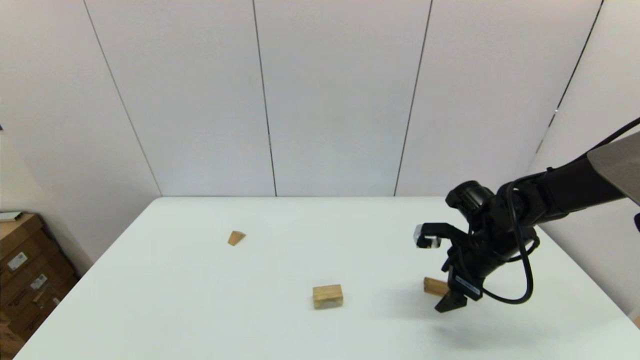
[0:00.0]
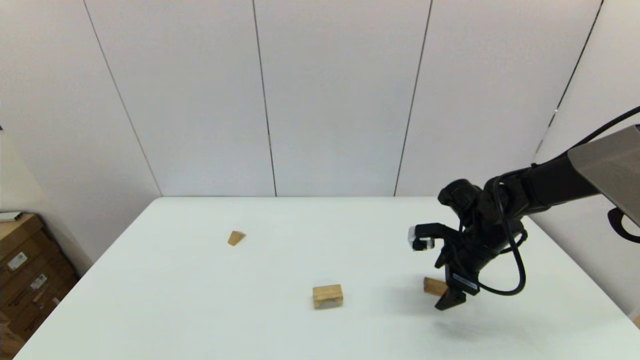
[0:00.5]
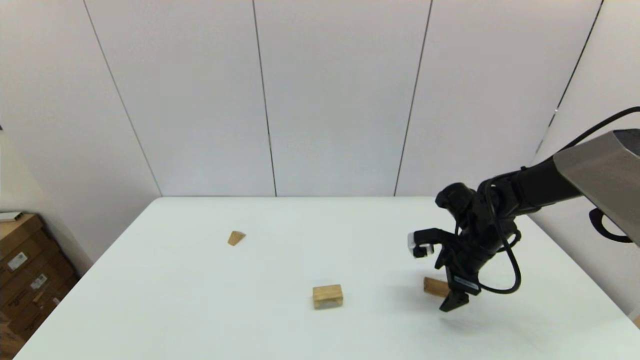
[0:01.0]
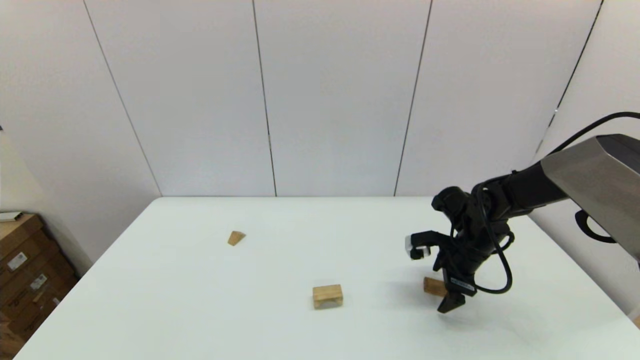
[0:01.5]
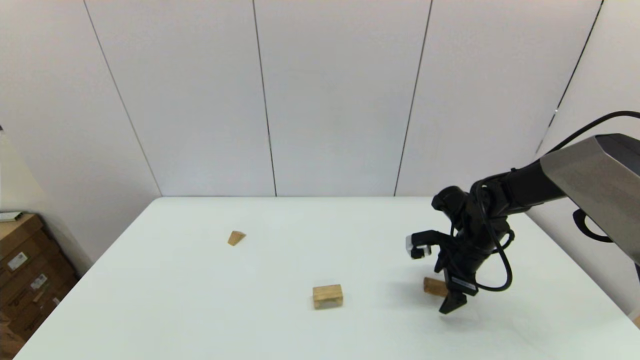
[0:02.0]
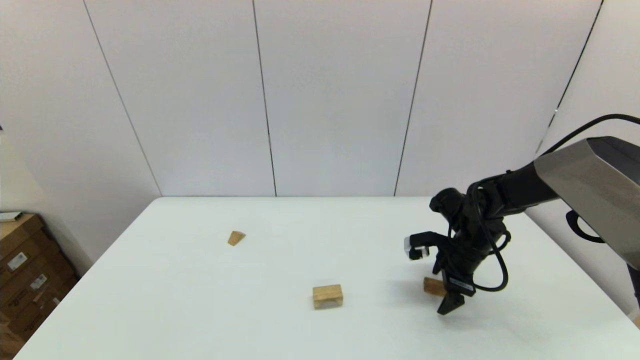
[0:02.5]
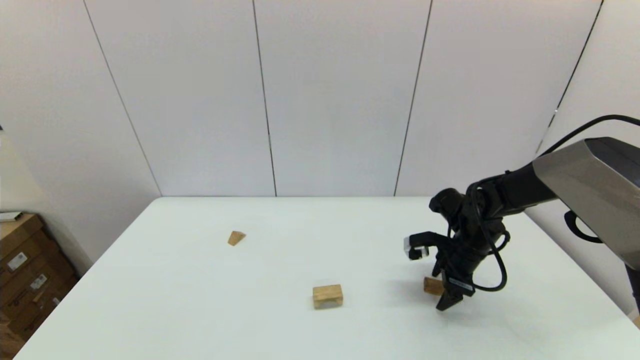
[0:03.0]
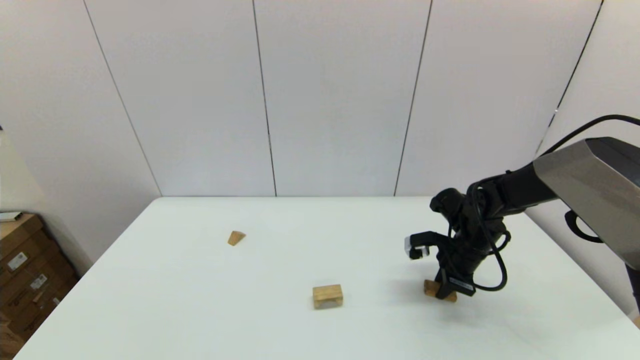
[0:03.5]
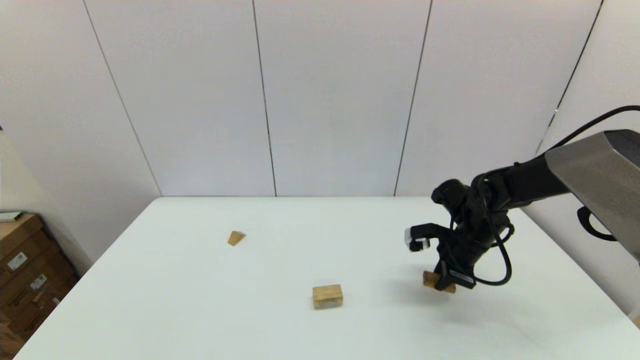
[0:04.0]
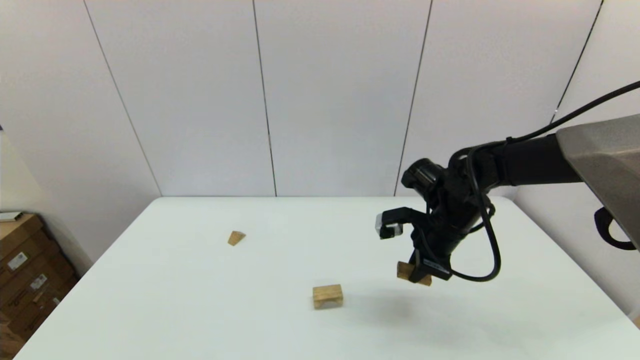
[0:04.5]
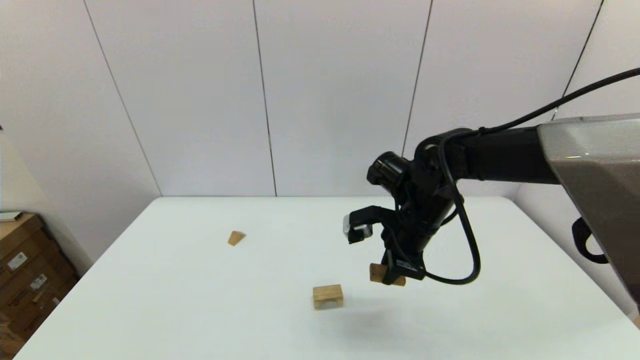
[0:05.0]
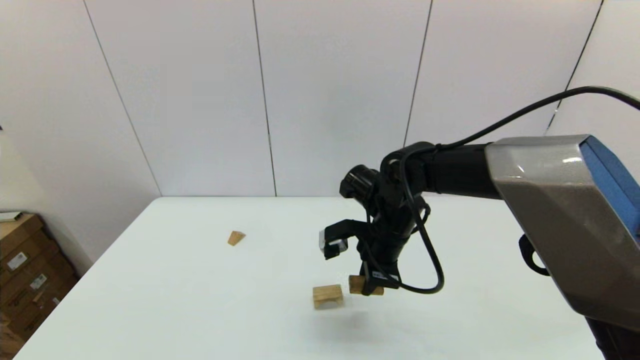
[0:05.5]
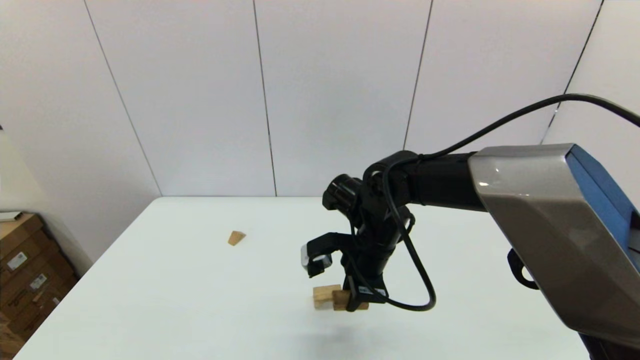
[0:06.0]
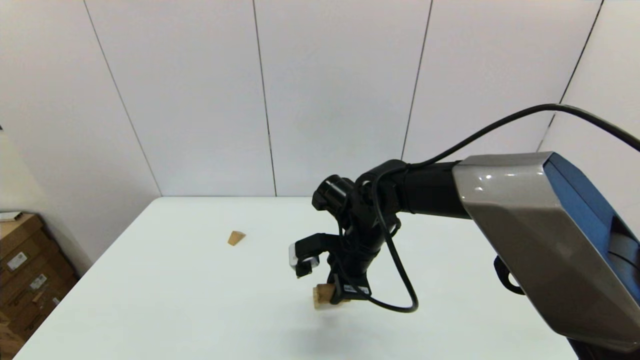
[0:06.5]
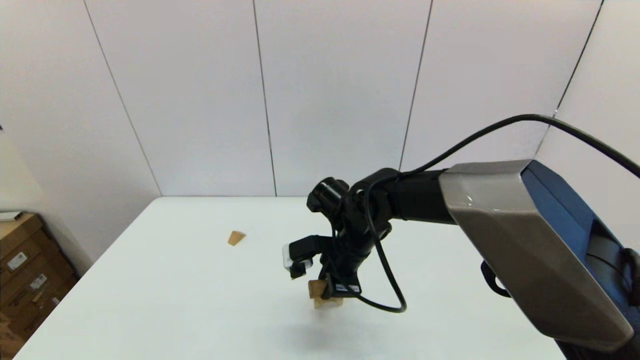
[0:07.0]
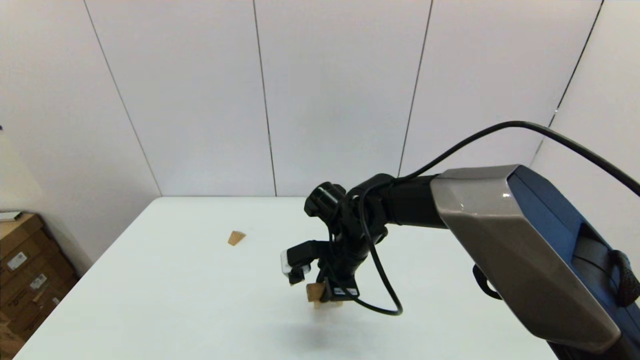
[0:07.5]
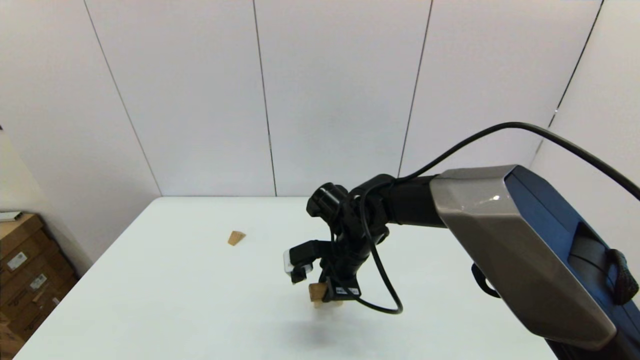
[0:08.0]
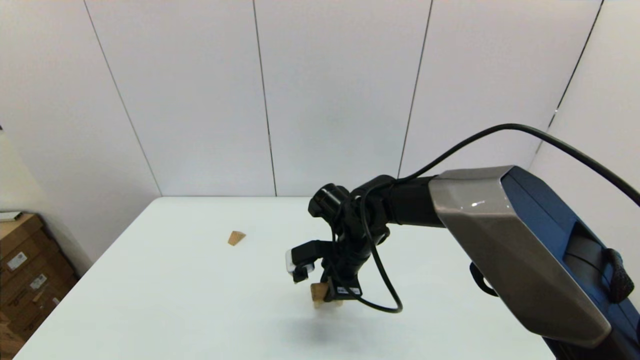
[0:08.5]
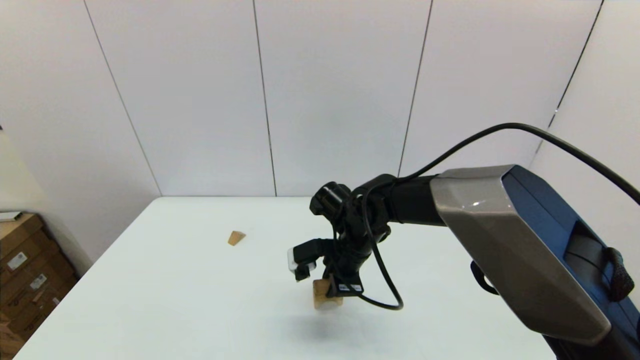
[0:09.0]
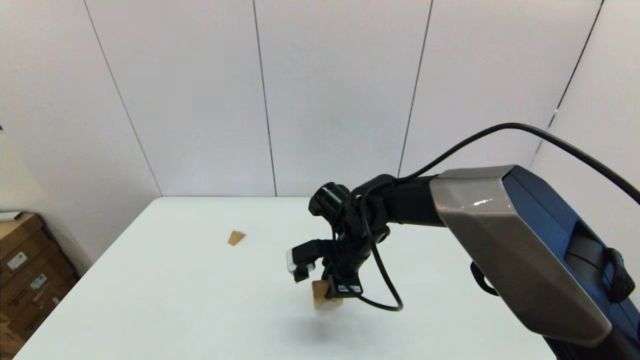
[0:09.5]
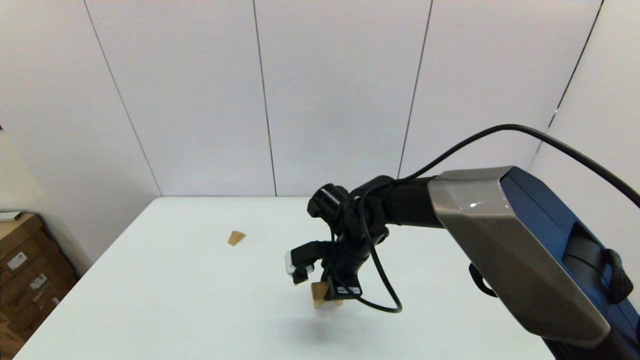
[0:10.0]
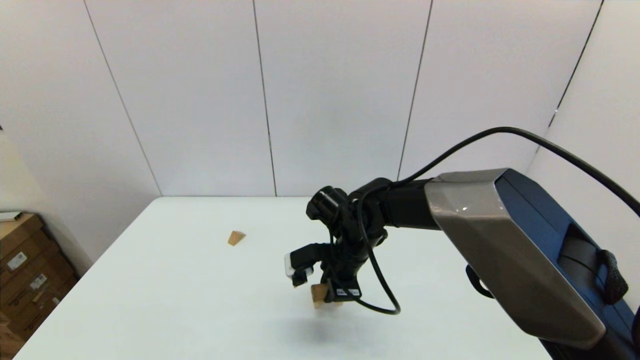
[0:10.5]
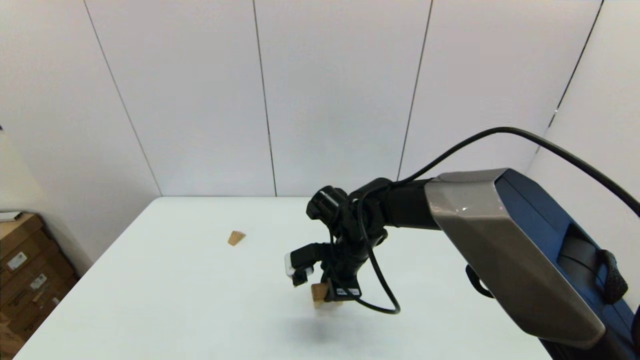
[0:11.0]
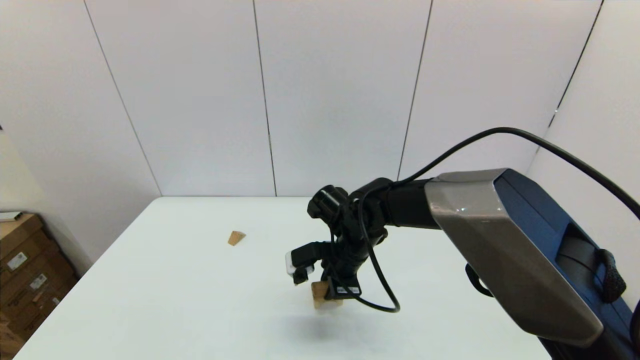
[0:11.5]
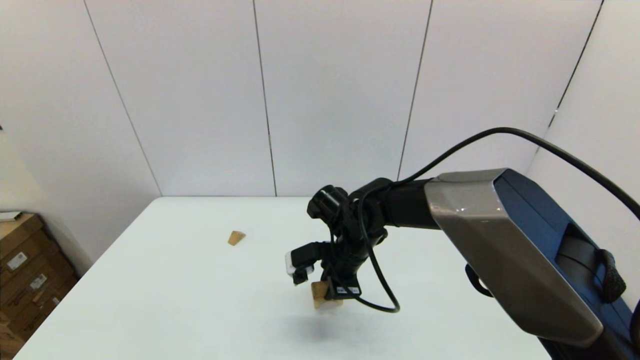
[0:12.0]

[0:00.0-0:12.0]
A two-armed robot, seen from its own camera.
Task of the whole recording: place the arched building blocks in the center of the table, set up the rectangular building blocks, and then set up the triangular building blocks.
Step, 0:00.0 to 0:03.0: Grasp the box-shaped block with the right gripper.
0:00.0 to 0:02.0: There are only small adjustments of the grippers.
0:02.0 to 0:04.0: The right gripper closes its fingers.
0:04.0 to 0:06.0: The right gripper moves to the left, about 20 cm.
0:06.0 to 0:08.0: The right gripper changes place by about 5 cm.
0:08.0 to 0:12.0: Neither gripper changes place.

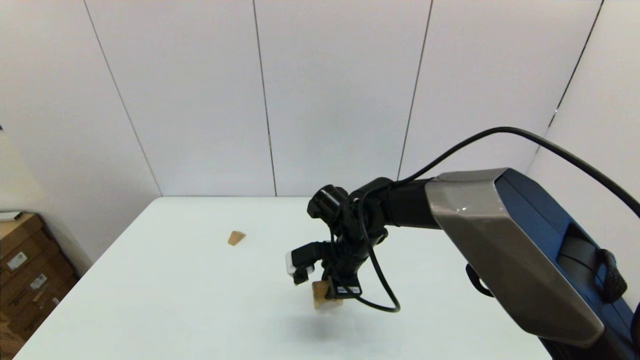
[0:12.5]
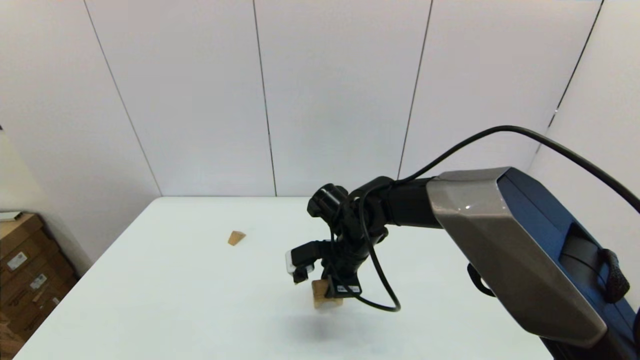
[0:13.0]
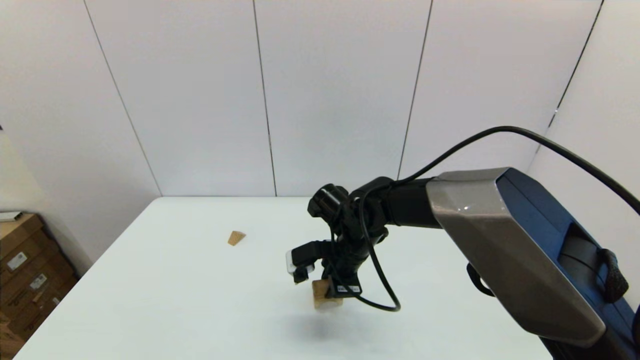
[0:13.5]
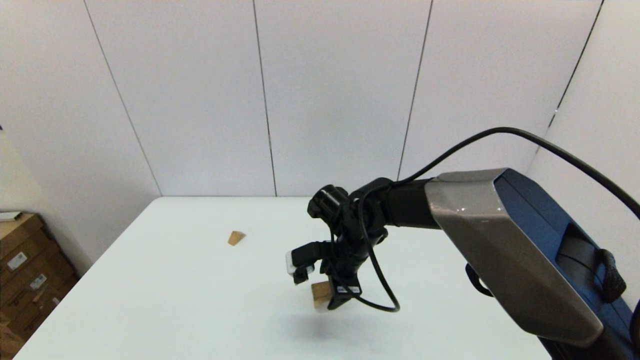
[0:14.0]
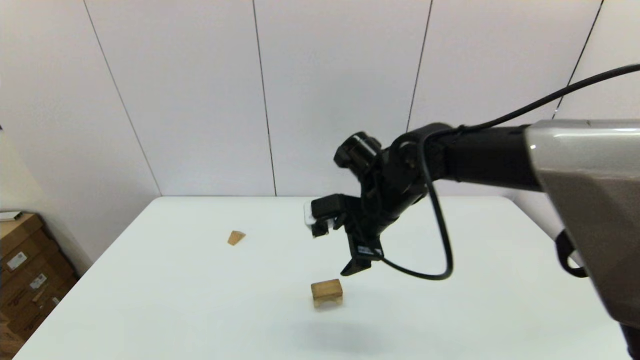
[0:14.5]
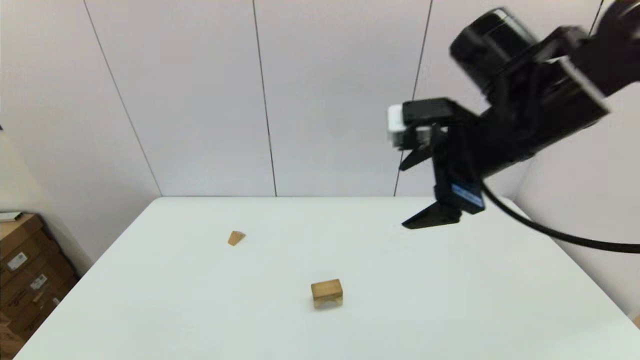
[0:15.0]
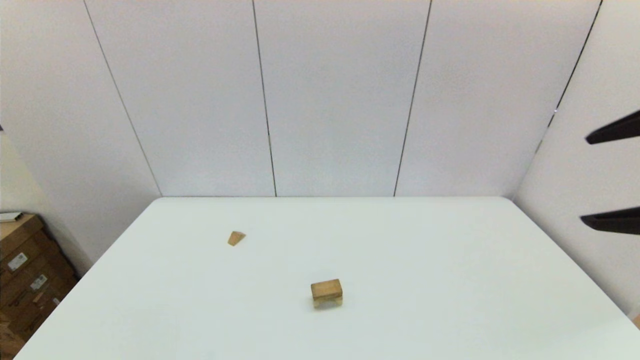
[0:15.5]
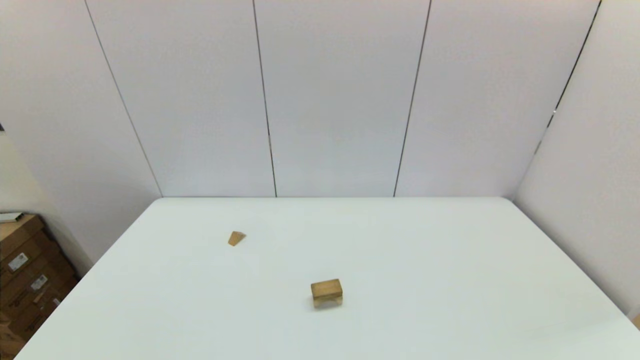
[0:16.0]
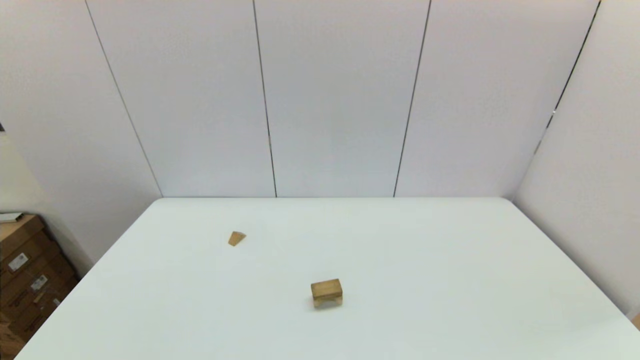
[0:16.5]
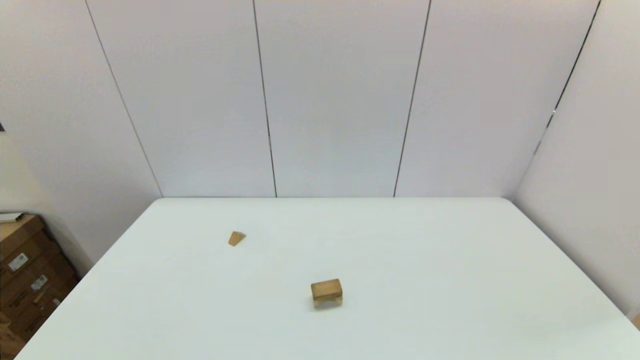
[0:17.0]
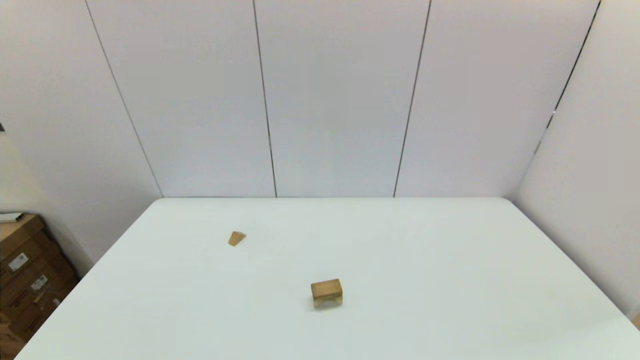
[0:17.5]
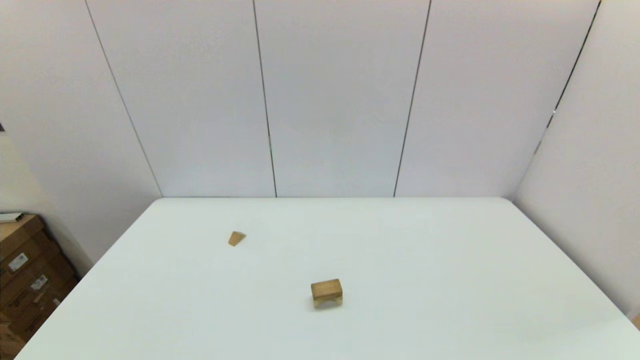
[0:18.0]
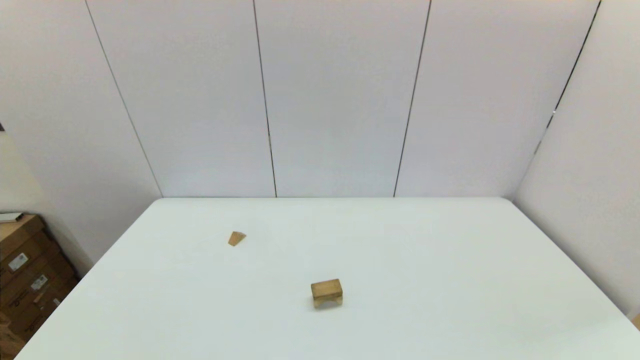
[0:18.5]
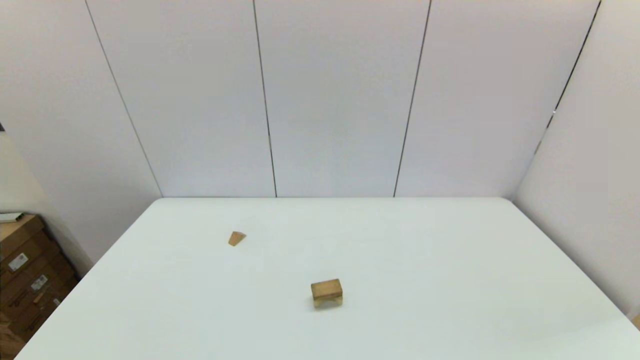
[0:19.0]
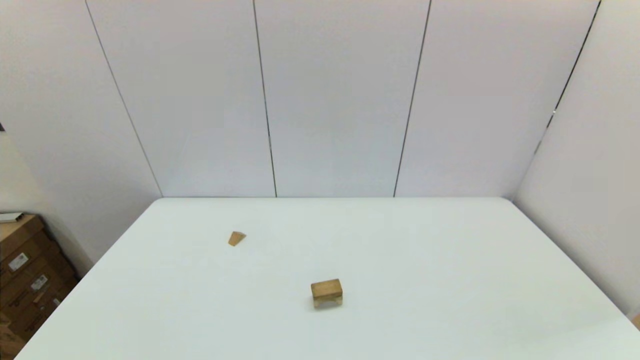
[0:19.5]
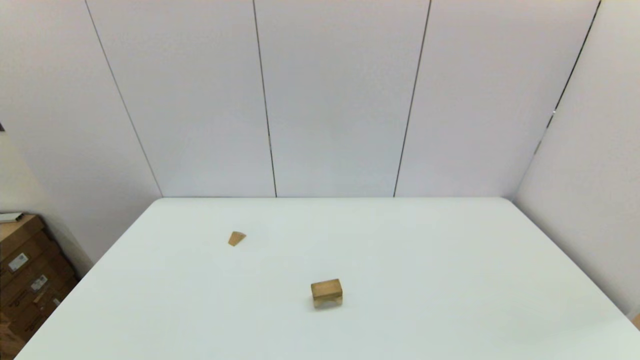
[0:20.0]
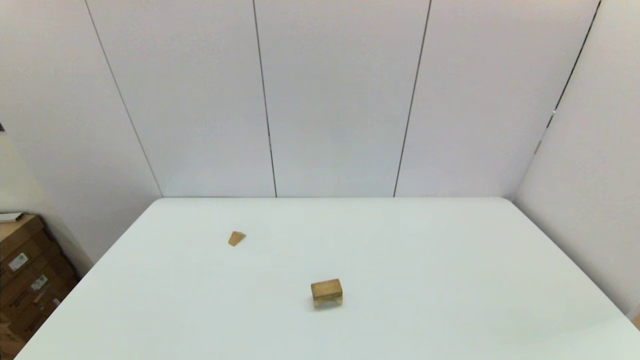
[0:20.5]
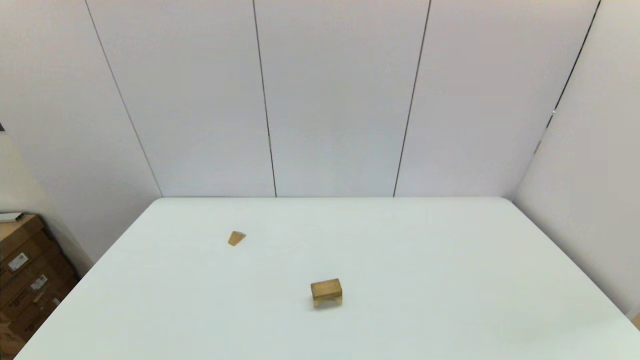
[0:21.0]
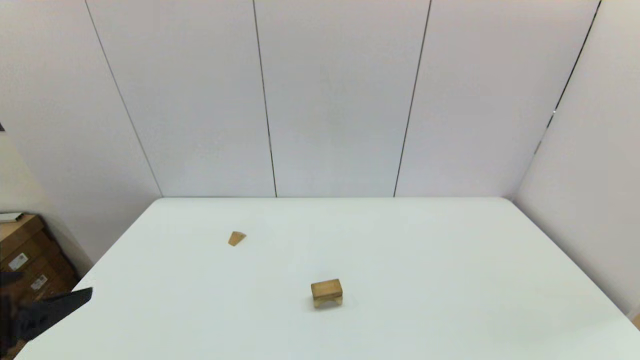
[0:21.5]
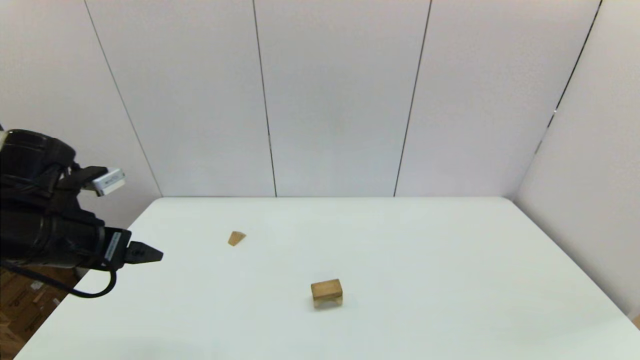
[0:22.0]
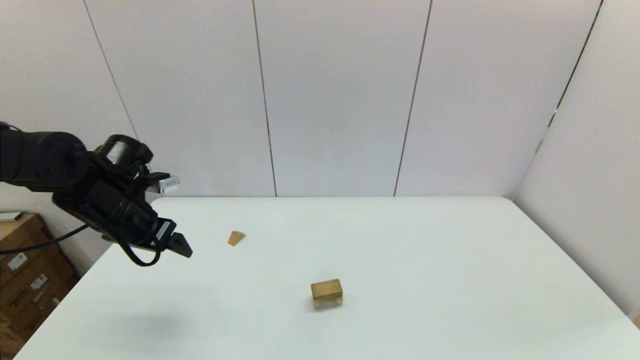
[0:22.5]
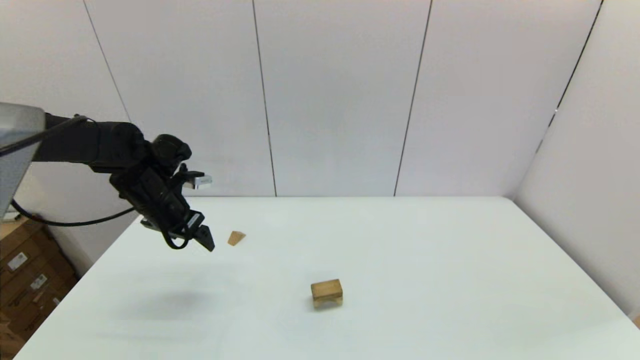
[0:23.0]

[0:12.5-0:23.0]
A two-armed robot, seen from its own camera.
Task of the whole recording: place the arched building blocks in the center of the table, set up the rectangular building blocks, and then set up the triangular building blocks.
0:12.5 to 0:14.5: The right gripper heads upward, covering approximately 10 cm, and opens up.
0:14.5 to 0:16.5: The right gripper is displaced backward and to the right by approximately 50 cm.
0:21.0 to 0:23.0: The left gripper shifts approximately 40 cm forward.
